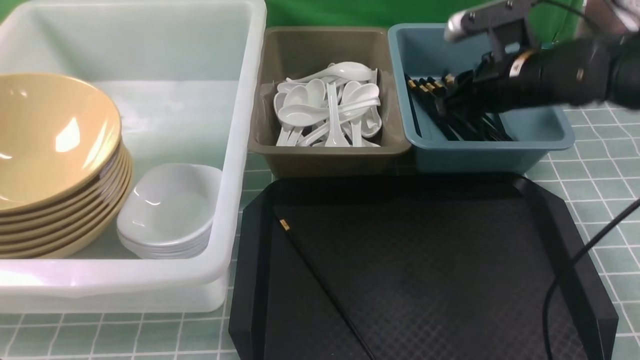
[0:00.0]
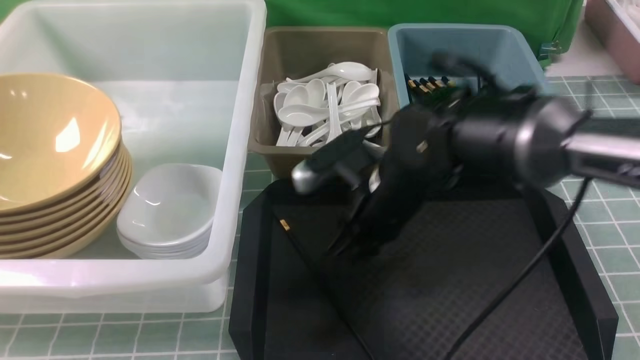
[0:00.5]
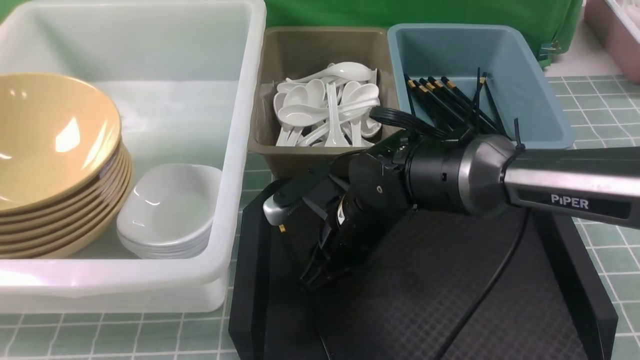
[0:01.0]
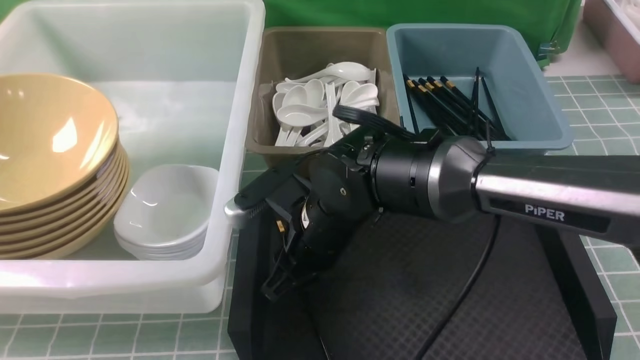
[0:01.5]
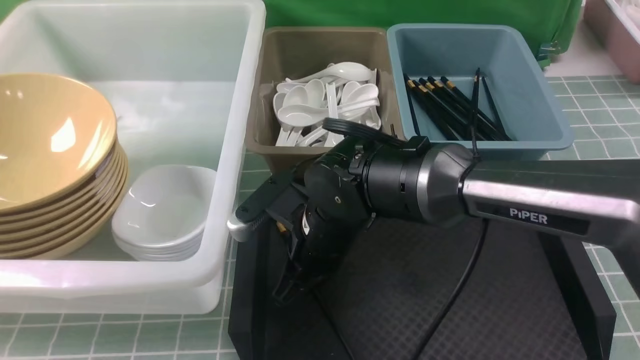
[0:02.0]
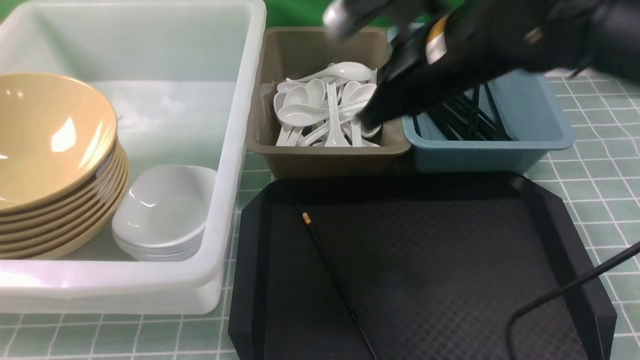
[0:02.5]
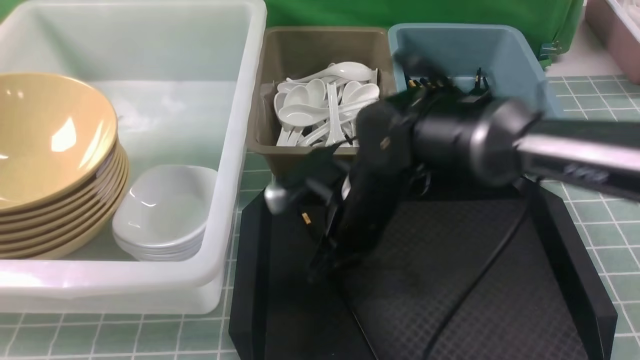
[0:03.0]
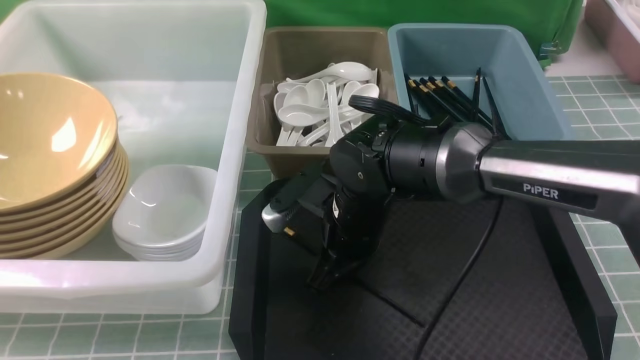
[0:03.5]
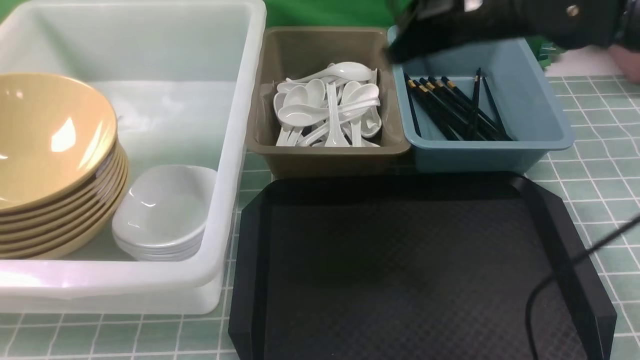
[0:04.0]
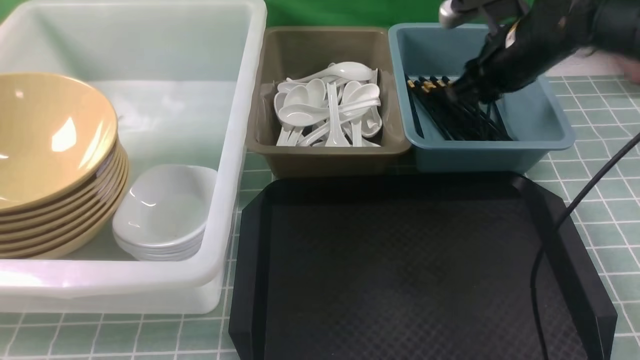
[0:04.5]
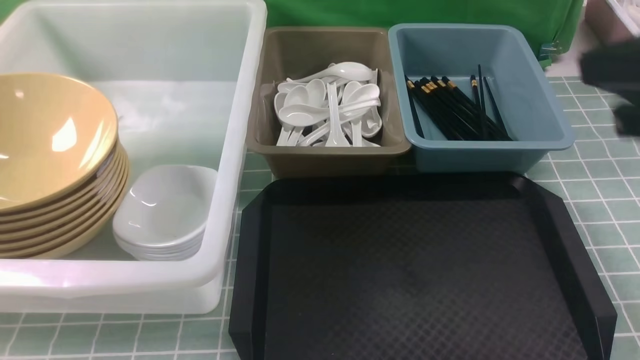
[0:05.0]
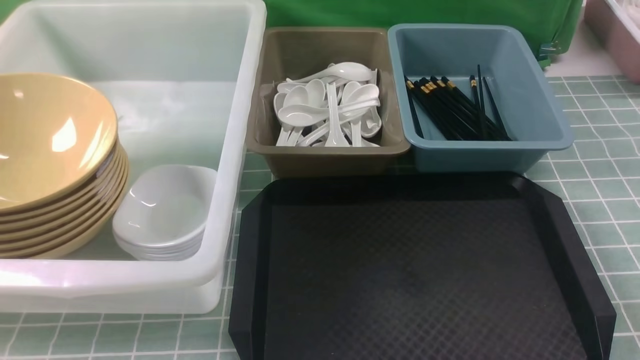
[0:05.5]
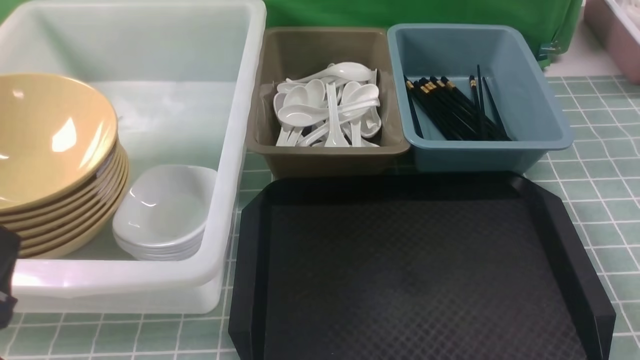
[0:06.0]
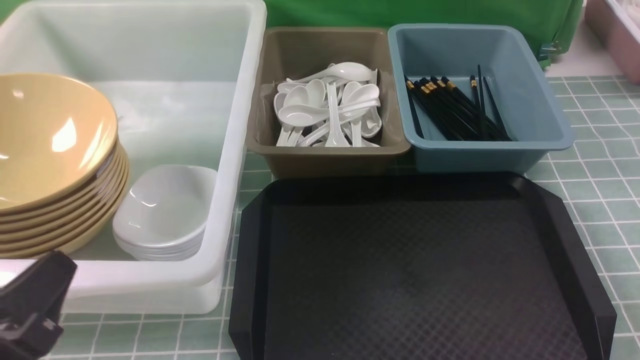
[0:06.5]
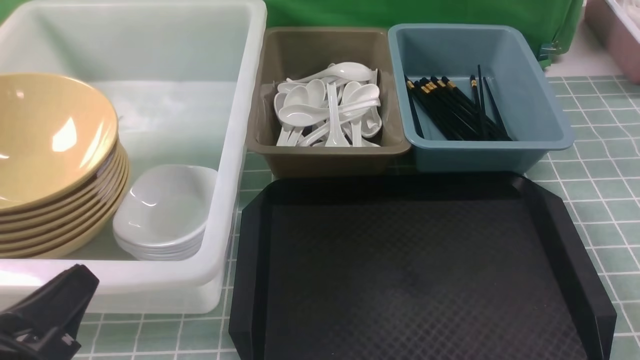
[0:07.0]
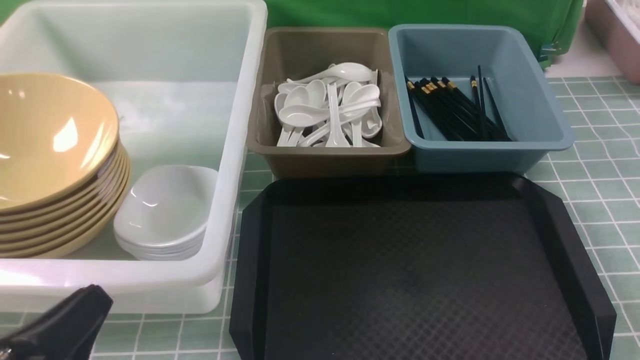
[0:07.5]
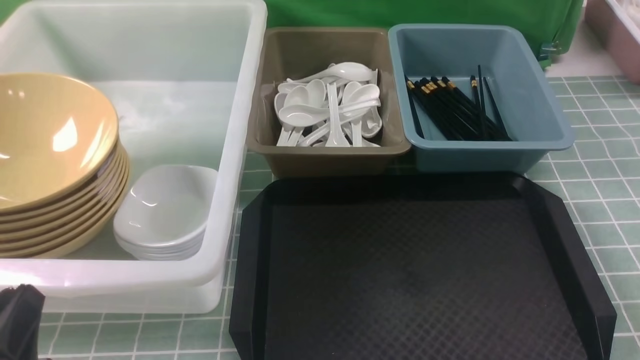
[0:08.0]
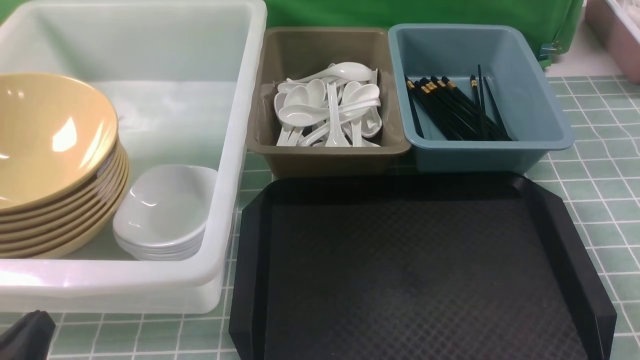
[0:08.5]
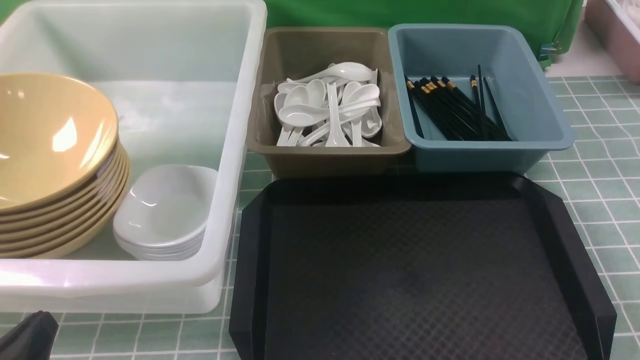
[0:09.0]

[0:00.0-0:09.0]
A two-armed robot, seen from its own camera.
Task of the whole recording: on blue table put chopsticks spoon bowls plates into blue grey white boxes.
Step, 0:00.5 to 0:03.5: use the right arm to grab a chopstick.
Step, 0:04.0 to 0:04.5: use the right arm to put a chopstick into the small storage box on the right.
0:00.0 to 0:02.0: The right gripper is displaced to the left and backward by some 20 cm, and closes up.
0:02.0 to 0:04.5: The right gripper swings left and right, some 20 cm each way, with 2 reversals, and opens.
0:04.5 to 0:07.0: The left gripper shifts by roughly 5 cm. Meanwhile the right gripper shifts roughly 35 cm backward and downward, and closes its fingers.
0:07.0 to 0:09.0: The left gripper changes place by approximately 5 cm.

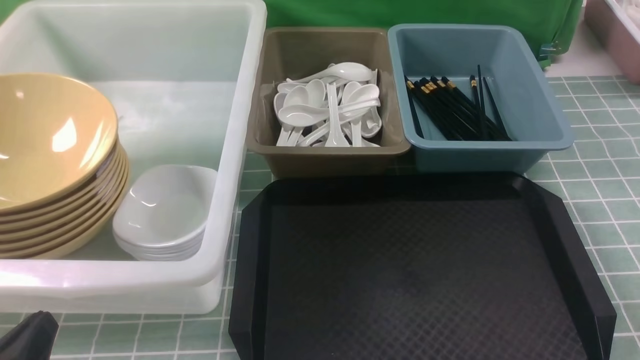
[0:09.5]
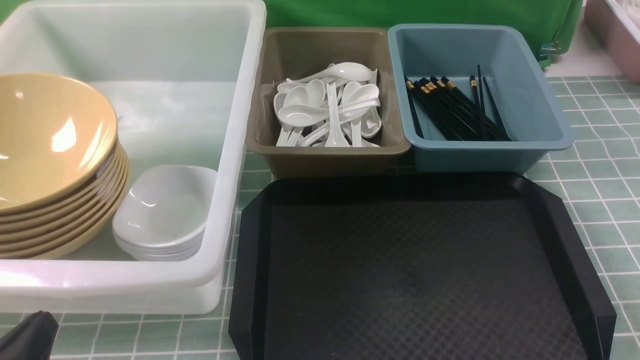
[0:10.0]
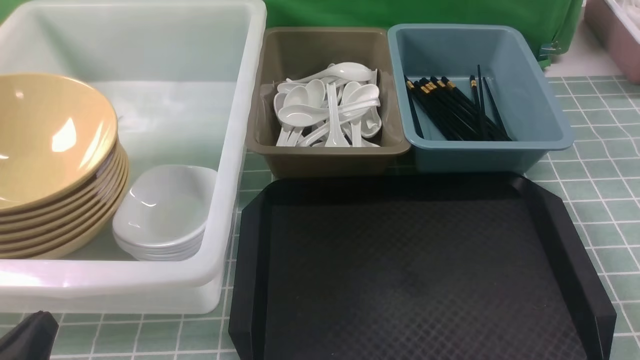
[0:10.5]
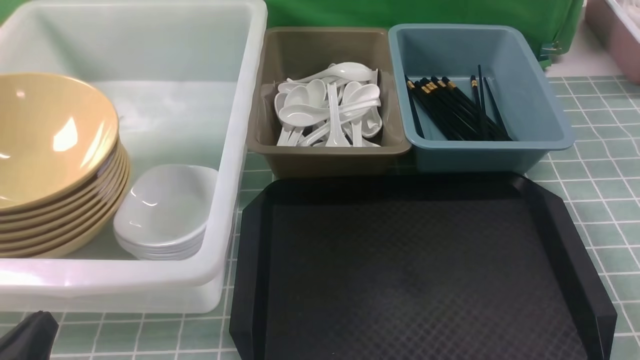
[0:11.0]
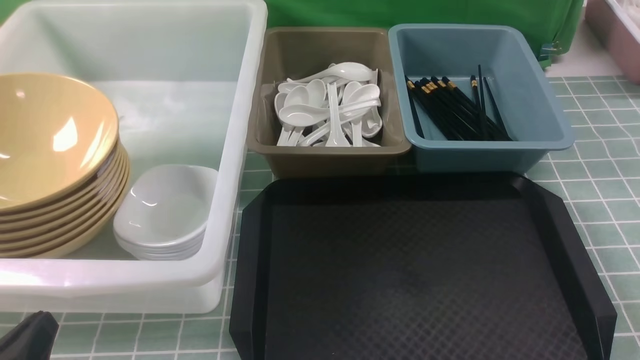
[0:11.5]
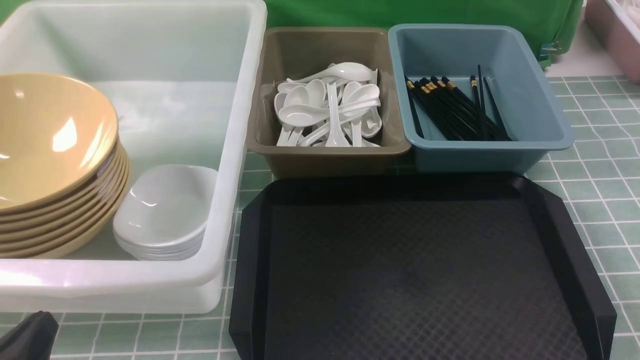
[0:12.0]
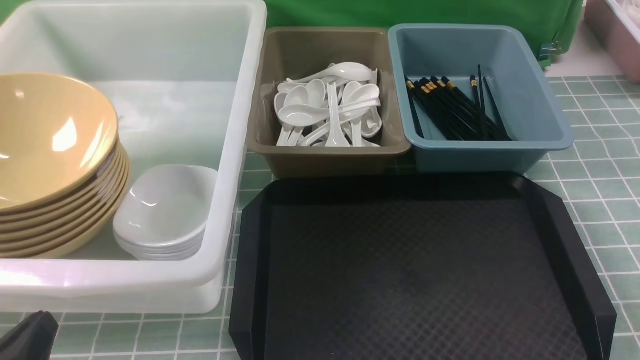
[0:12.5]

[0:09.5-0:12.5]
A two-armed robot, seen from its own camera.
Task of the whole recording: on blue table put chopsticks spoon bowls plates into blue grey white boxes.
0:09.5 to 0:12.5: The two grippers keep their place.
